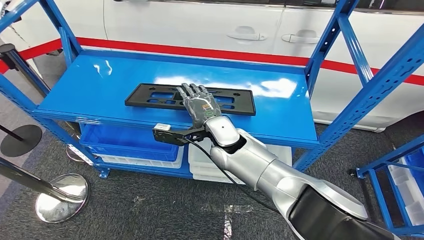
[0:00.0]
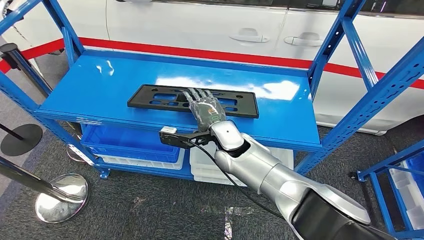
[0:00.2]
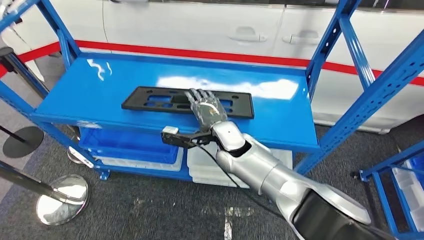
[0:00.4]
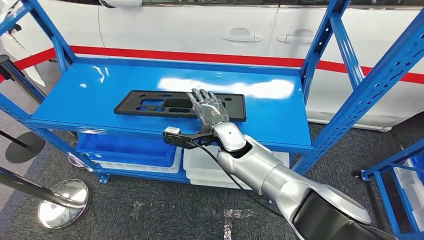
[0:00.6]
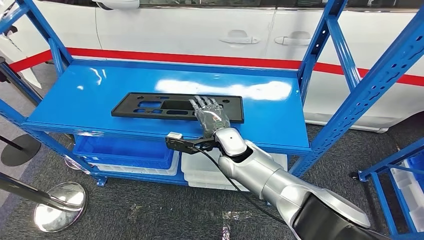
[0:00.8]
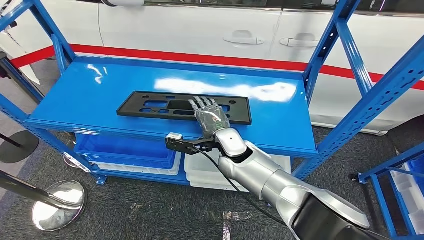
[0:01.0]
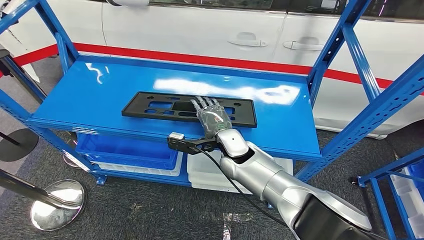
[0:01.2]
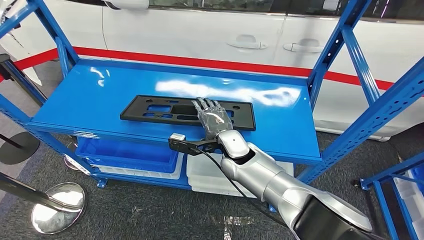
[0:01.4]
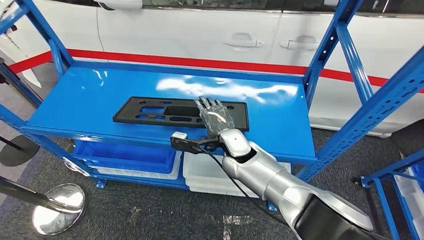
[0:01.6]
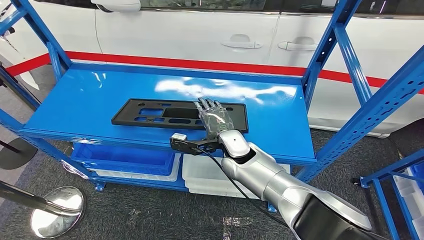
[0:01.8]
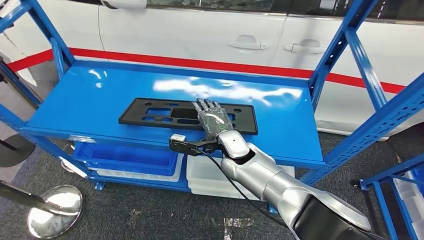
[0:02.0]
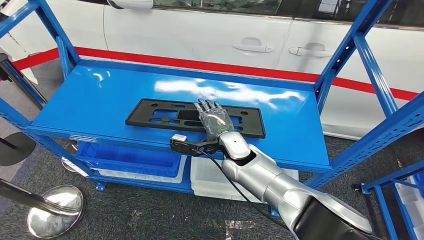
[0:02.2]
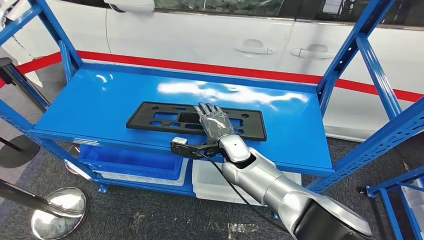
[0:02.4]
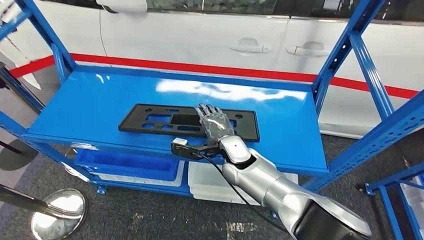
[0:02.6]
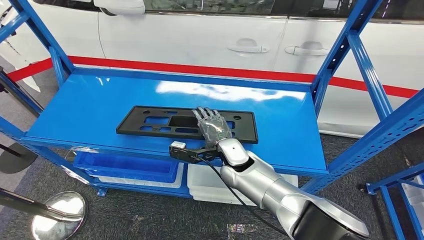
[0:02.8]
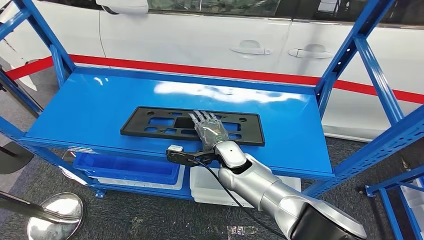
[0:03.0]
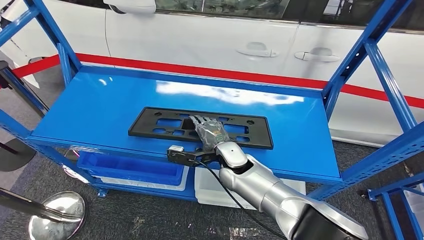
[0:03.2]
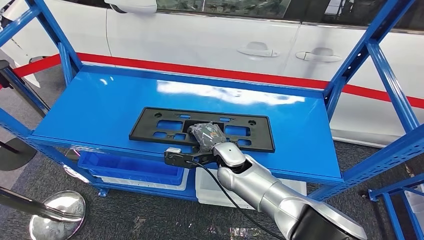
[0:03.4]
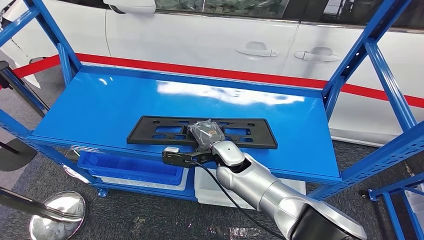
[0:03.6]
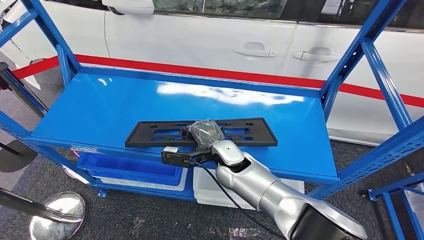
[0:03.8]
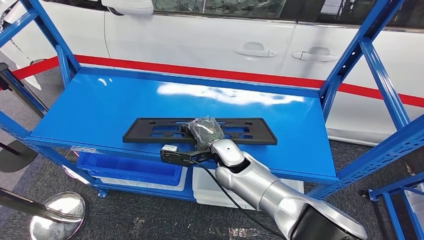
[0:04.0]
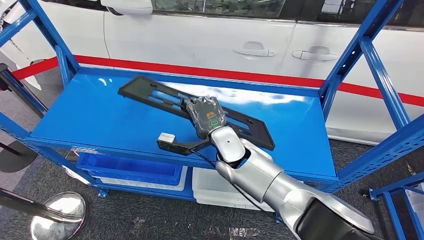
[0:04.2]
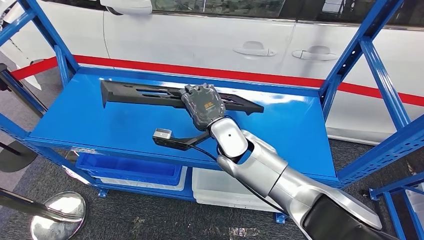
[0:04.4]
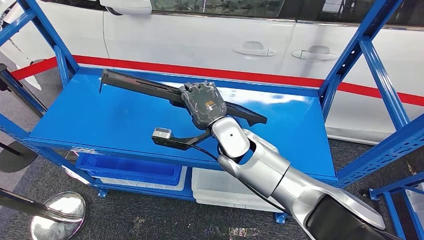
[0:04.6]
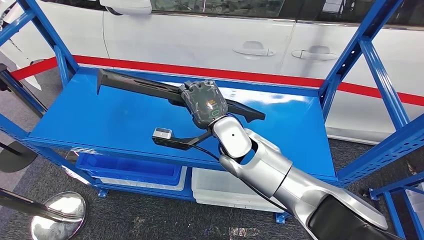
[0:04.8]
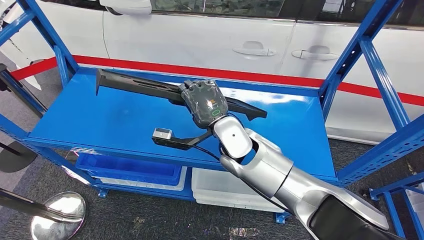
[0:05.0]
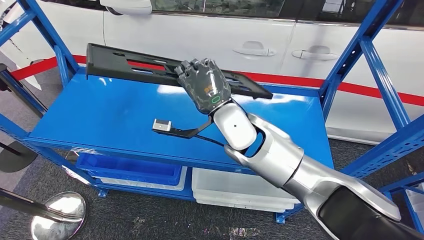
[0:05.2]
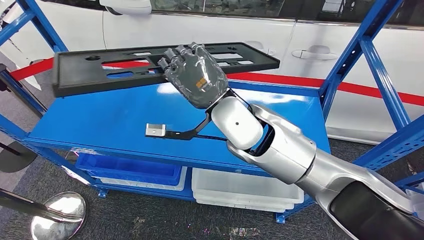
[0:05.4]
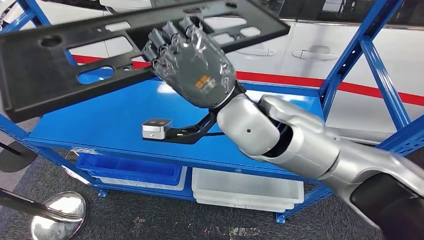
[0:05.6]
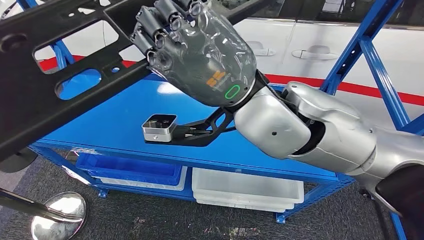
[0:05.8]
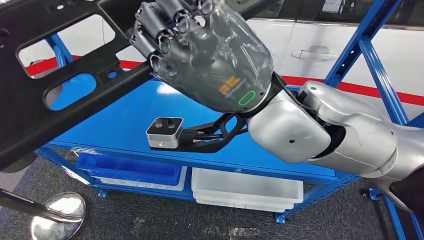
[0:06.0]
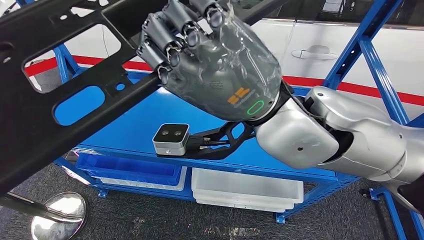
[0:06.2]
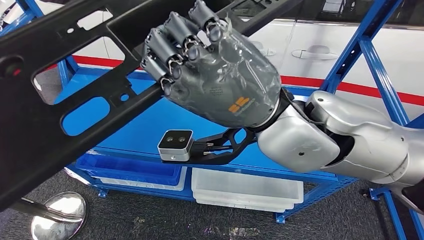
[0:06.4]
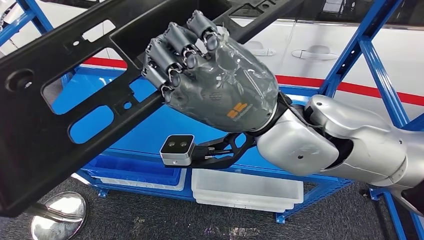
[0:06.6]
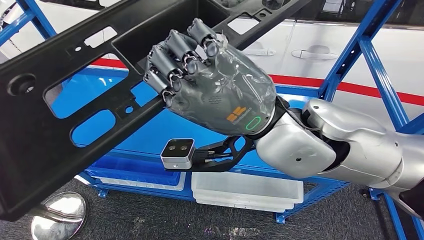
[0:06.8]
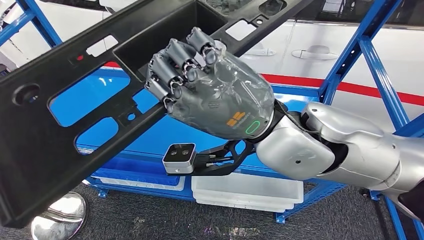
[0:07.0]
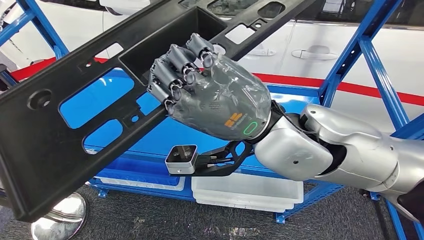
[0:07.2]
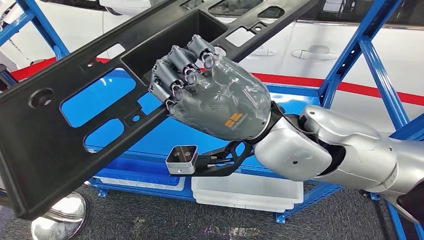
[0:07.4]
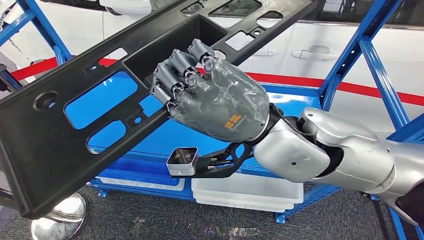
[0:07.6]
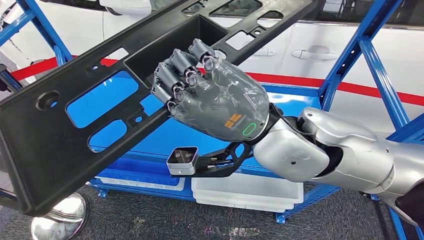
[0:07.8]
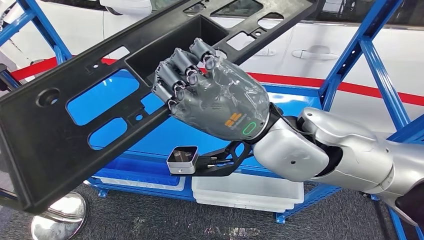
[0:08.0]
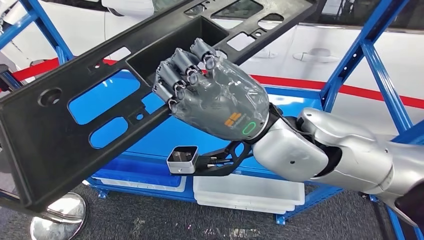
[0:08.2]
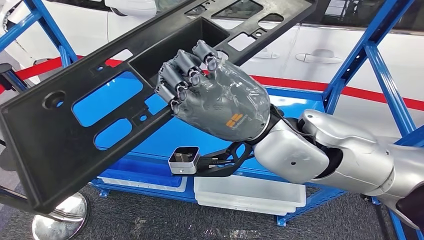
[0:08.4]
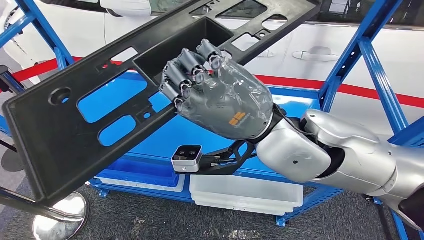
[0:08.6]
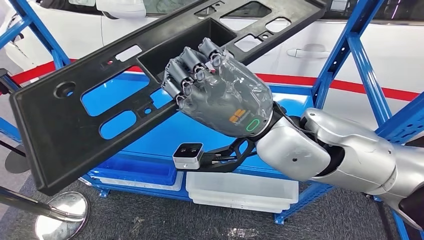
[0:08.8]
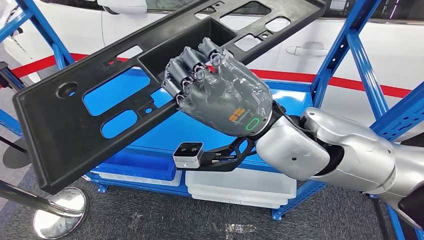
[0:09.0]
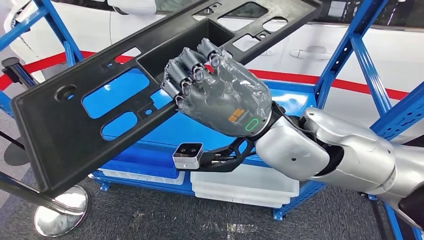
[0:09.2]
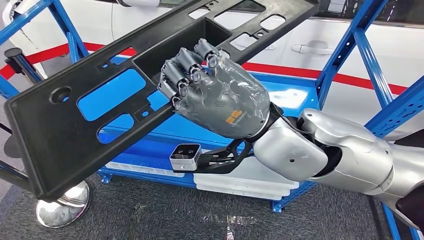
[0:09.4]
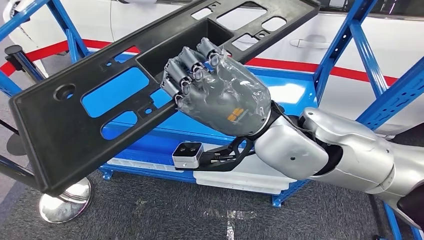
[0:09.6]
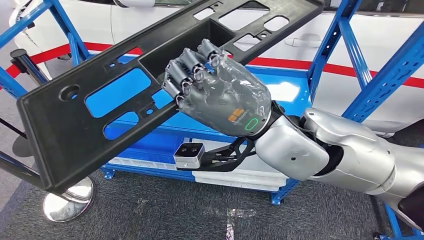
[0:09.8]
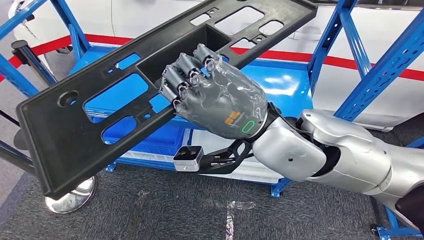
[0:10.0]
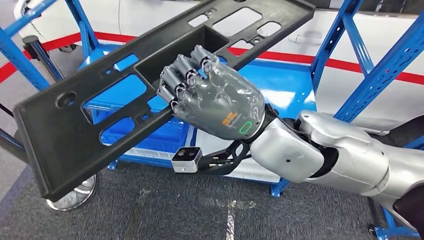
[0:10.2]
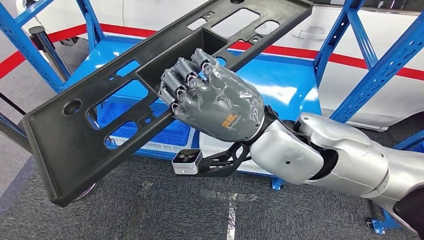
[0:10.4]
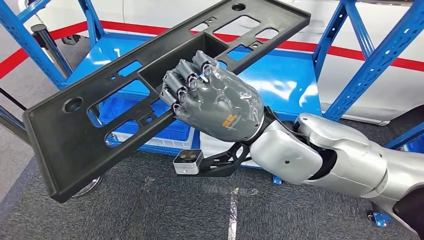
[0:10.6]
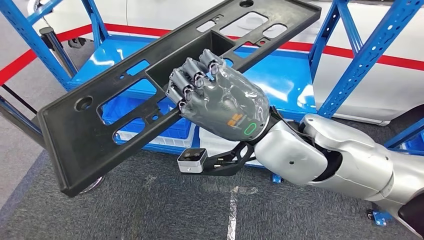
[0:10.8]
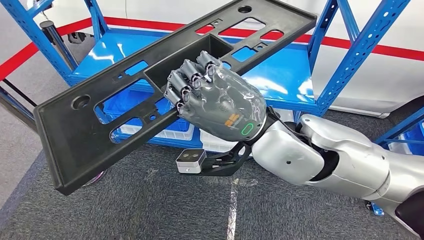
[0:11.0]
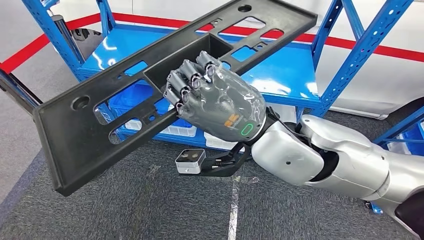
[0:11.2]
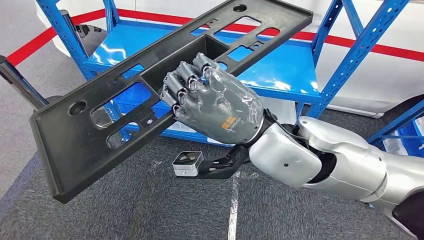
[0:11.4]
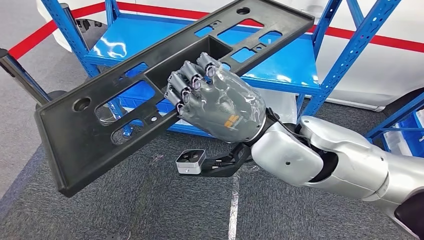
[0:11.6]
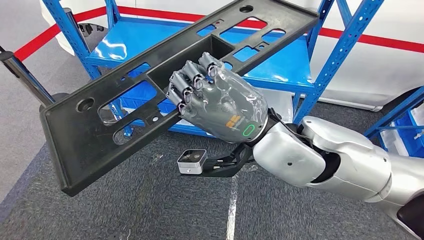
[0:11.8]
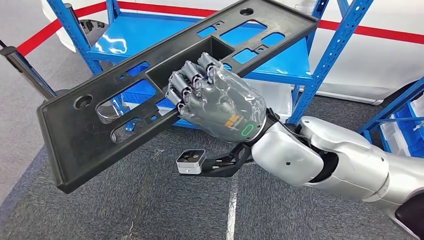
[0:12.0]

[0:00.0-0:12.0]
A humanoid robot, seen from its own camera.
Step, 0:00.0 to 0:04.2: Pick up the large material from the shelf.

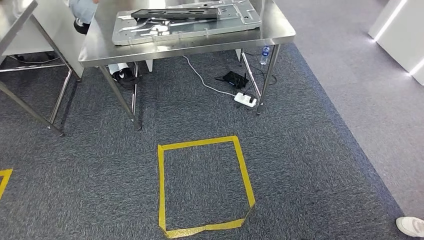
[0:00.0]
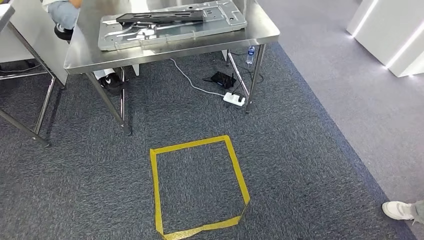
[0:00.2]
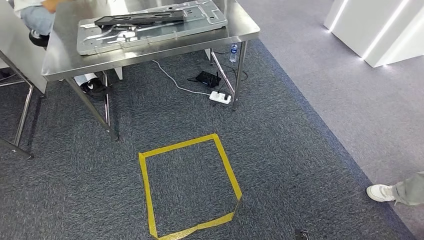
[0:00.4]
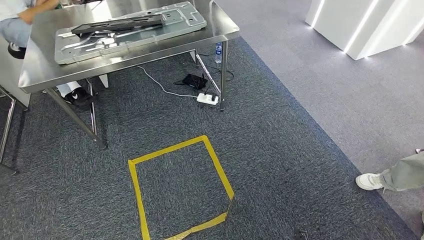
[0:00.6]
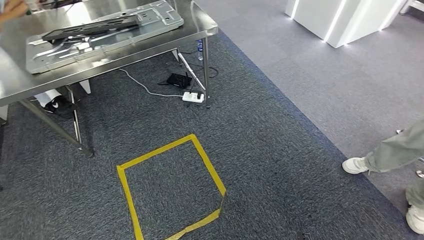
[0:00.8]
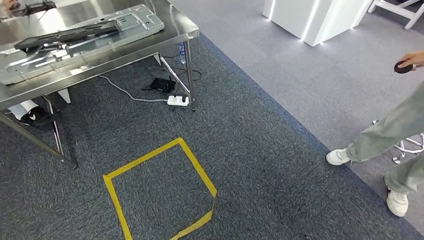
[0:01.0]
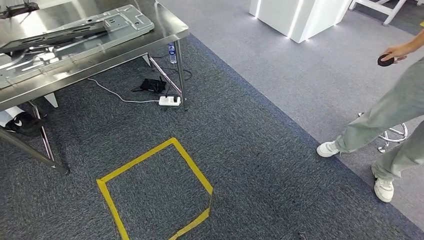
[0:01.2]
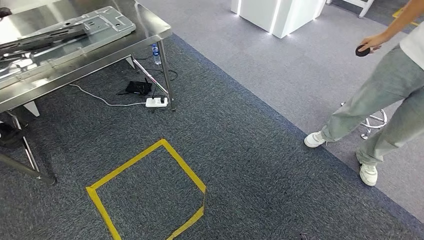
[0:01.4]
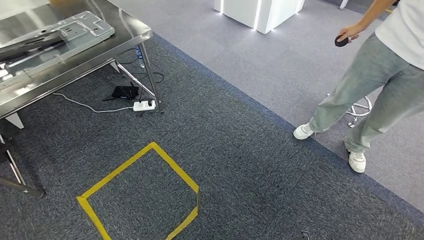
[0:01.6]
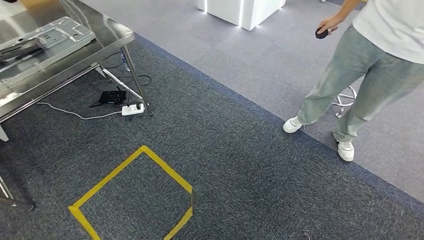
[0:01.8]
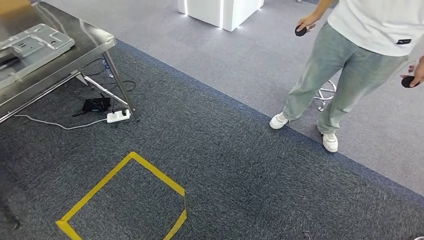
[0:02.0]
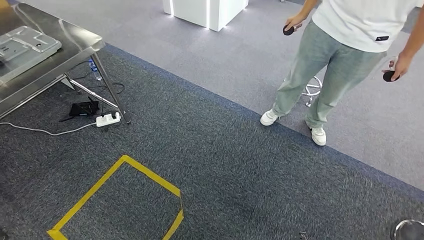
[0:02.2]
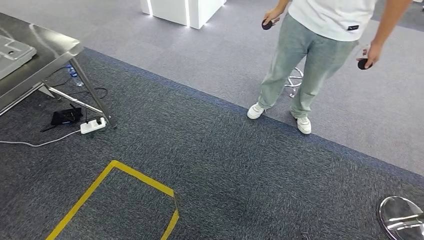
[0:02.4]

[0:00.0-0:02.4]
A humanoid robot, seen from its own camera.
Step, 0:00.0 to 0:02.4: Return to the initial position at the shelf.

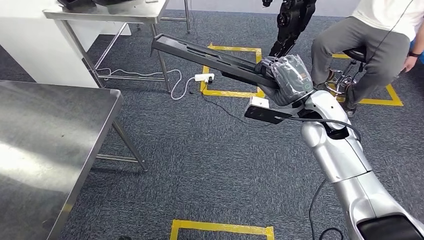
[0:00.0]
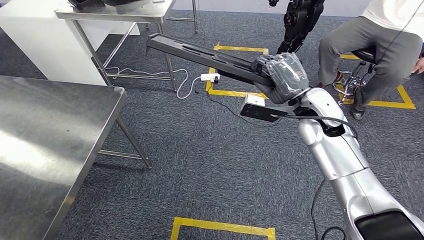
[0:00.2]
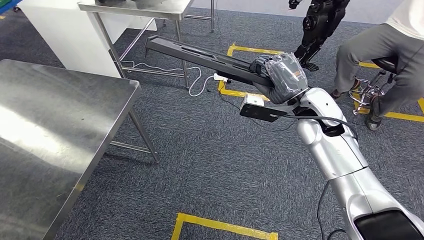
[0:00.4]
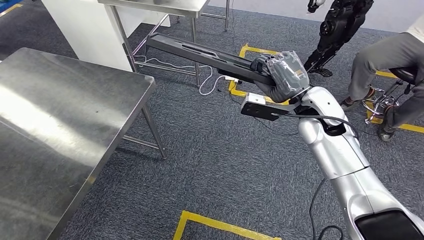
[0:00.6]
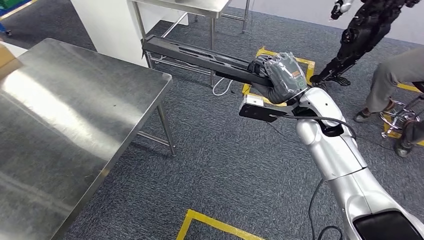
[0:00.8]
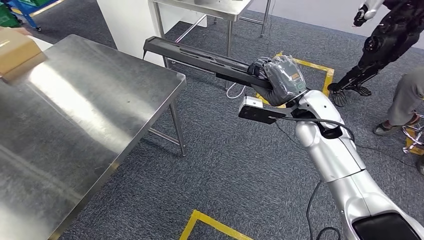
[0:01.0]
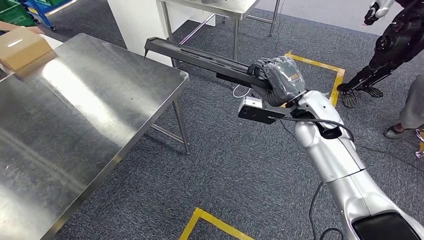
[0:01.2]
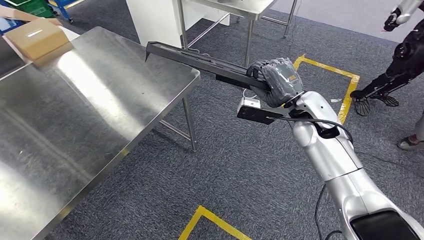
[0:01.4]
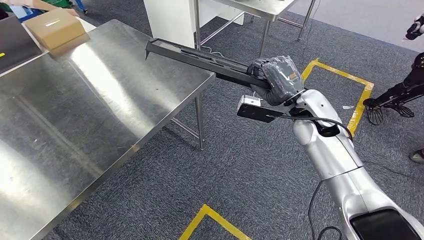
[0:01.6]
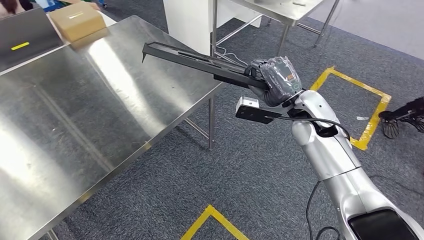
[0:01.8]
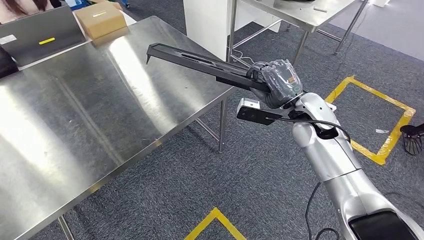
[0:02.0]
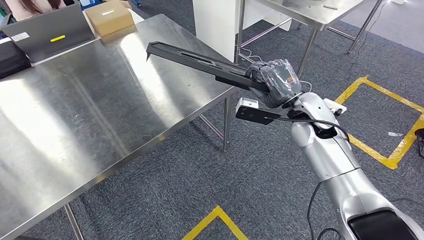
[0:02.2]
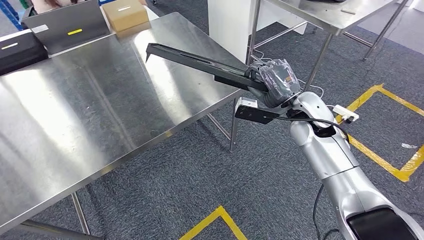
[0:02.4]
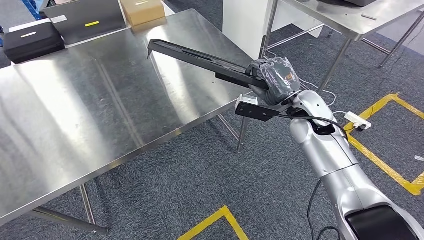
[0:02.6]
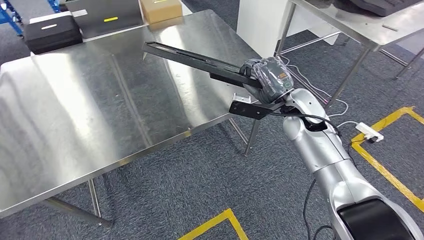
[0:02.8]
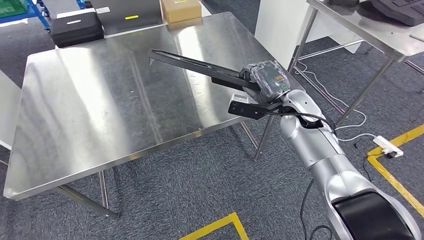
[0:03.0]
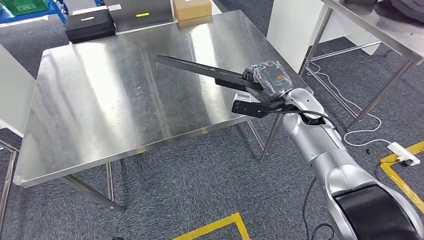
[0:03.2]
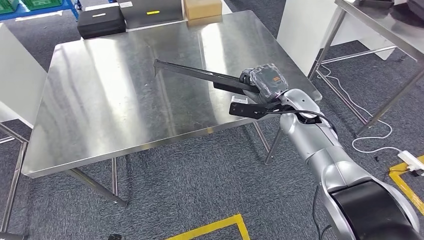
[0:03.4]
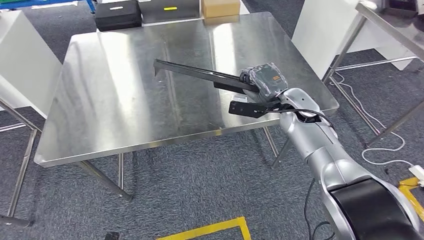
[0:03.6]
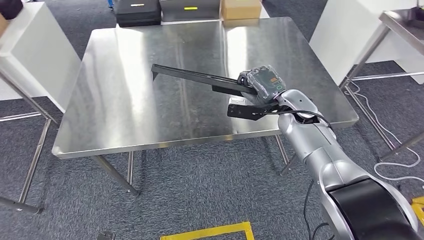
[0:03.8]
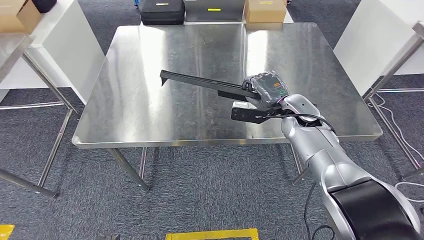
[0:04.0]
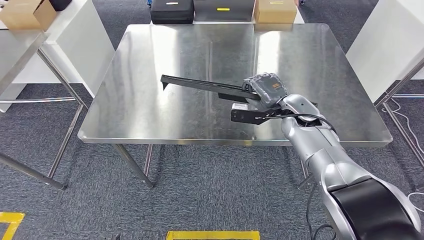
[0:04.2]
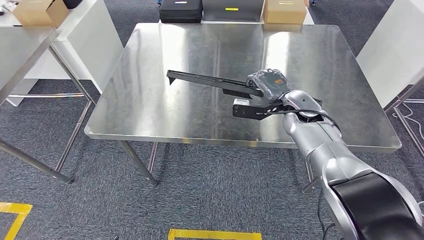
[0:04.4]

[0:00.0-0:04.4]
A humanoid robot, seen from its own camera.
Step, 0:00.0 to 0:02.2: Move the large material to the workbench.
